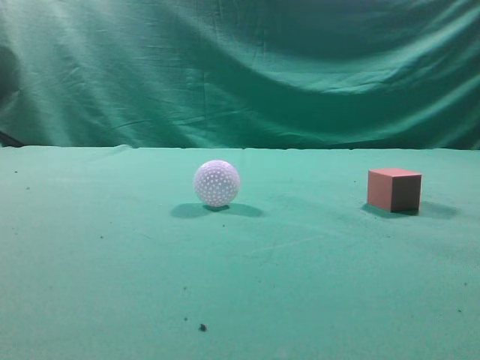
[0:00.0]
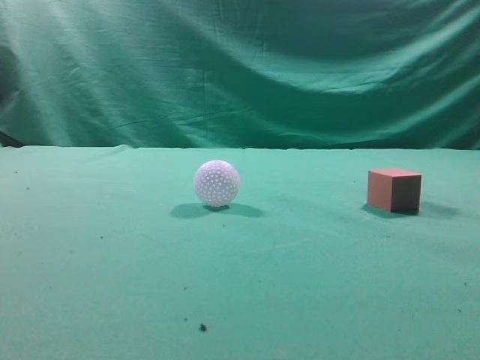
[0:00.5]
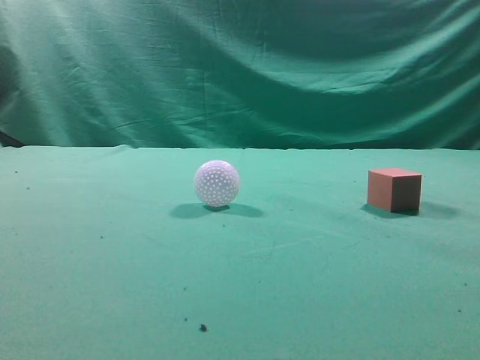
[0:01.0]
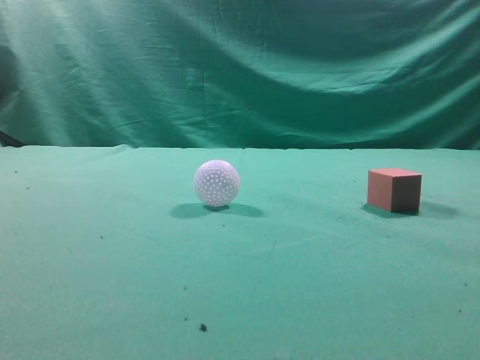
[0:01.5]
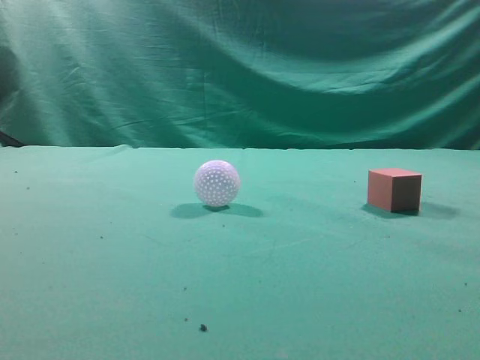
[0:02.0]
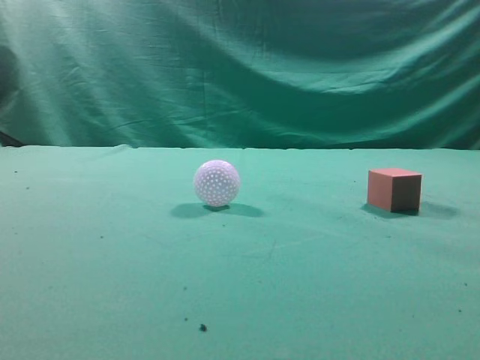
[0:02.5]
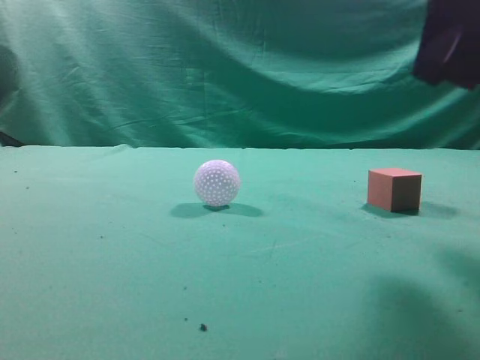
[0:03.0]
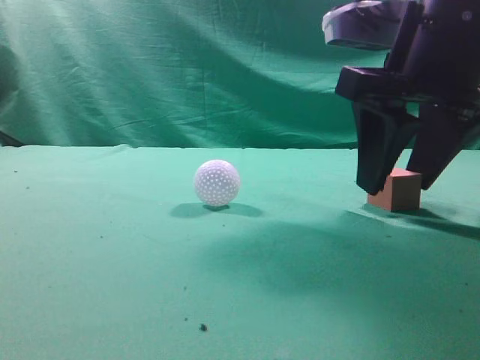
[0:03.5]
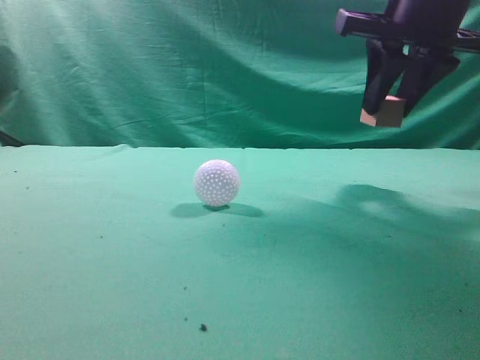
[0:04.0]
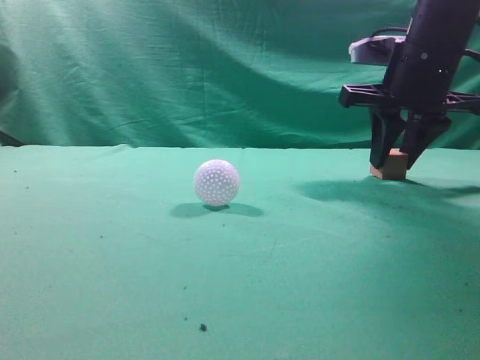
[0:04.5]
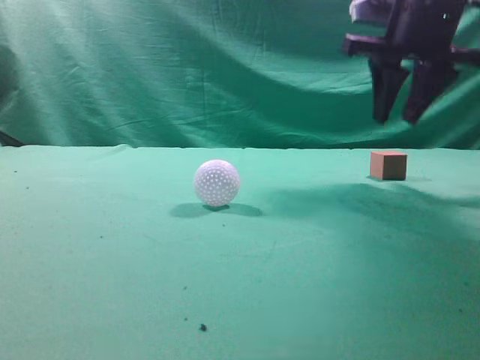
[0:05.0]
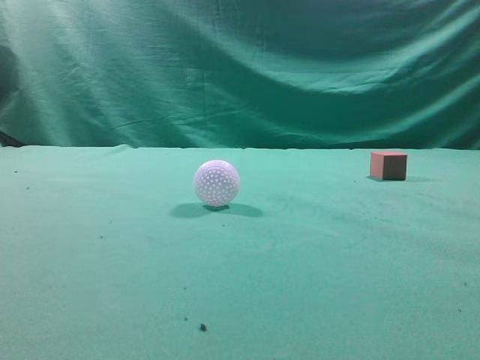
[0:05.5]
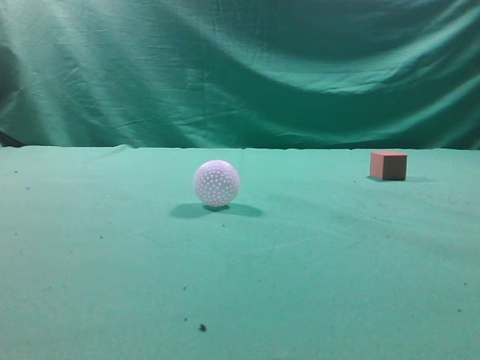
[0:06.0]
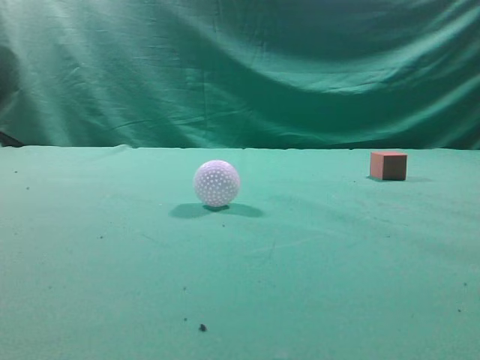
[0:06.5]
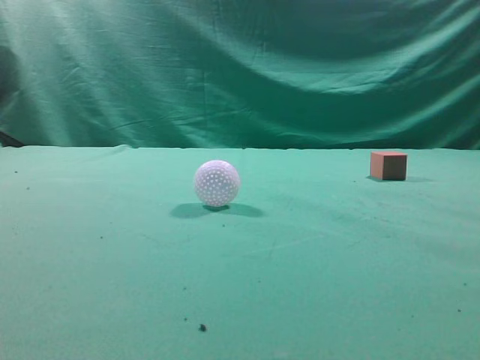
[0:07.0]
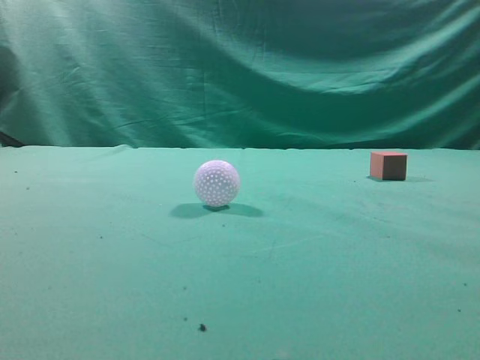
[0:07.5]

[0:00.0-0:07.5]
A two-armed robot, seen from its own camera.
Task of the whole recording: pick up the cube block and place it in another position on the table.
Step, 0:00.0 to 0:03.5: Pick up the small cube.
Step, 0:04.0 to 0:04.5: Place the small cube on the ahead of the table.
0:02.0 to 0:04.0: The right gripper moves forward, approximately 30 cm, and opens up.
0:04.0 to 0:05.5: The right gripper travels backward and upward by approximately 20 cm, and closes.
